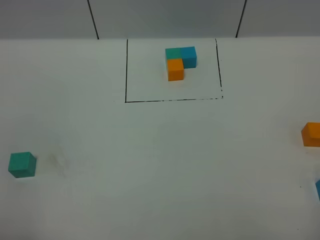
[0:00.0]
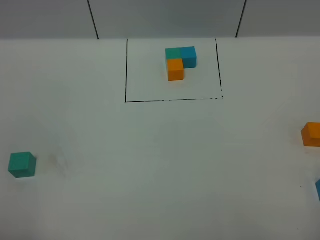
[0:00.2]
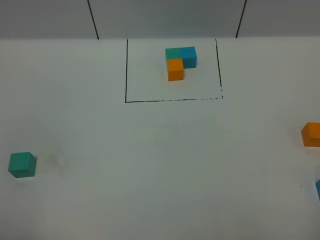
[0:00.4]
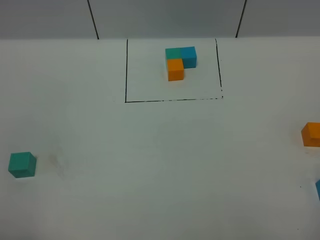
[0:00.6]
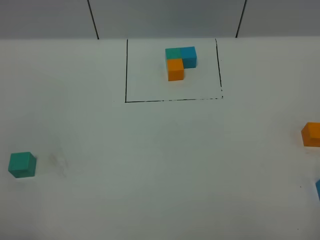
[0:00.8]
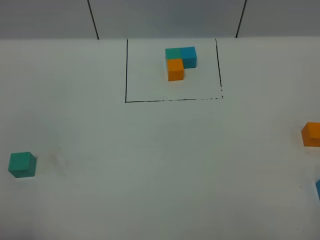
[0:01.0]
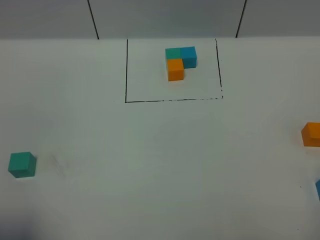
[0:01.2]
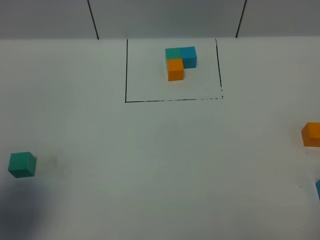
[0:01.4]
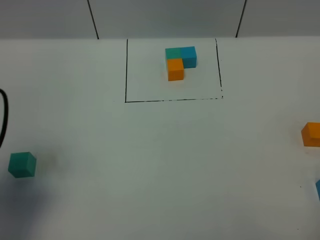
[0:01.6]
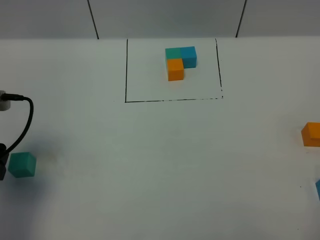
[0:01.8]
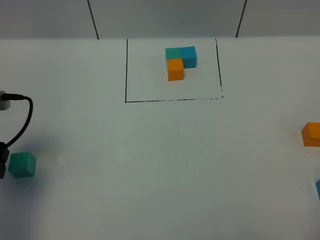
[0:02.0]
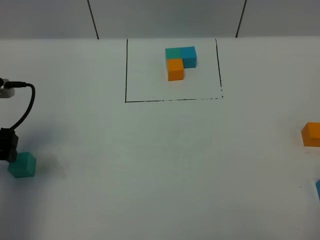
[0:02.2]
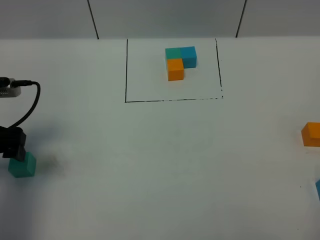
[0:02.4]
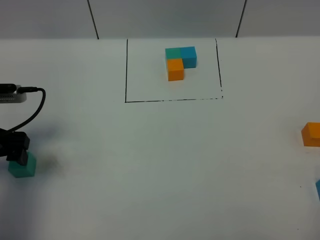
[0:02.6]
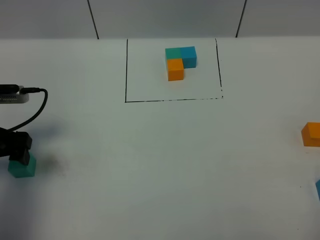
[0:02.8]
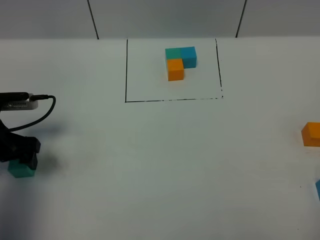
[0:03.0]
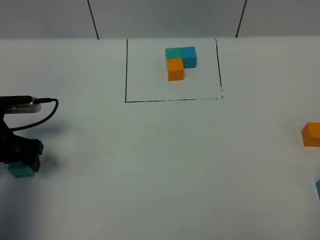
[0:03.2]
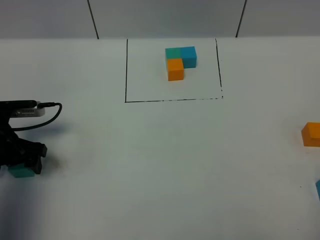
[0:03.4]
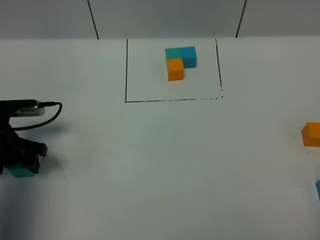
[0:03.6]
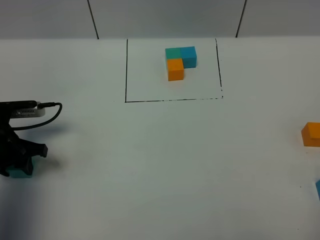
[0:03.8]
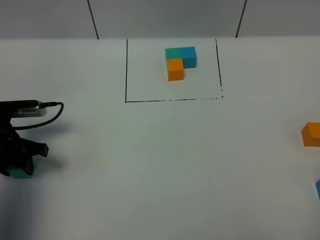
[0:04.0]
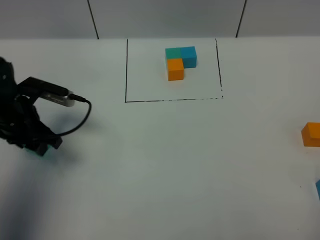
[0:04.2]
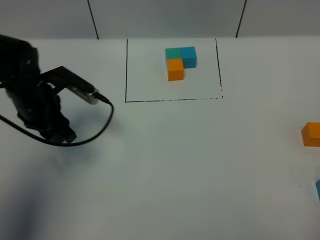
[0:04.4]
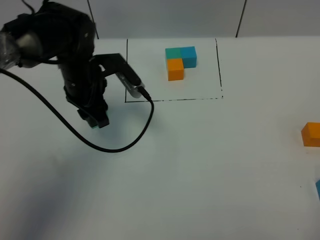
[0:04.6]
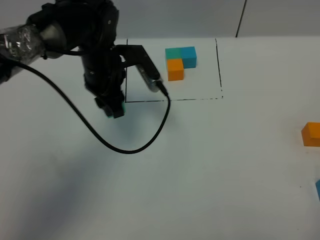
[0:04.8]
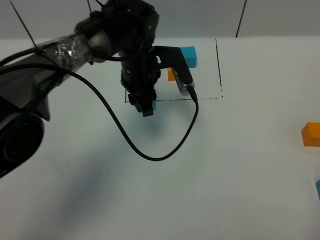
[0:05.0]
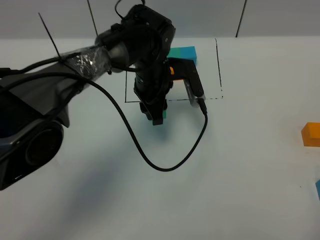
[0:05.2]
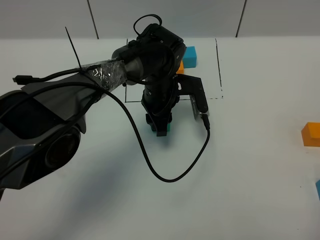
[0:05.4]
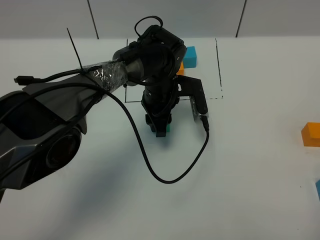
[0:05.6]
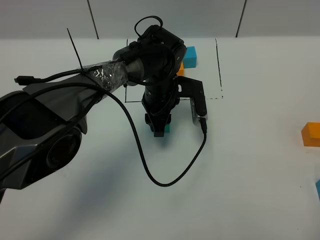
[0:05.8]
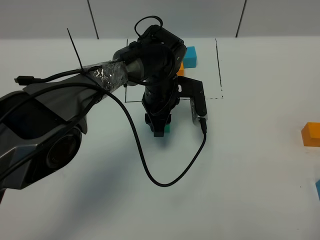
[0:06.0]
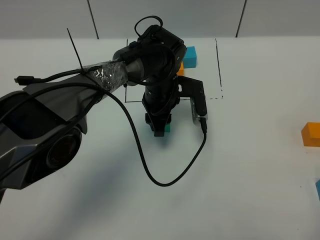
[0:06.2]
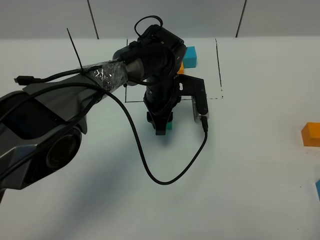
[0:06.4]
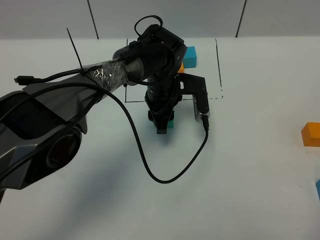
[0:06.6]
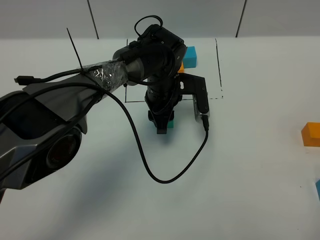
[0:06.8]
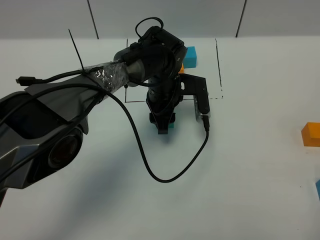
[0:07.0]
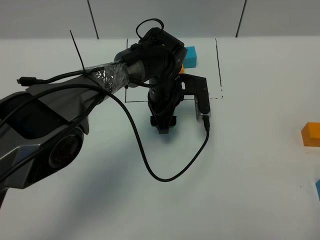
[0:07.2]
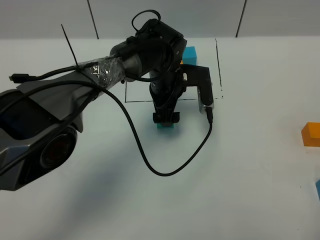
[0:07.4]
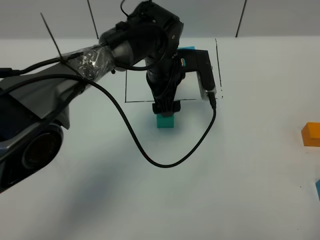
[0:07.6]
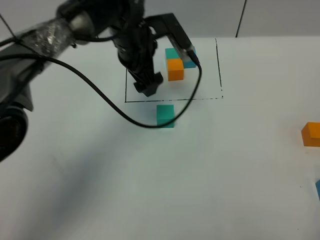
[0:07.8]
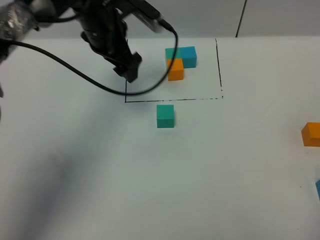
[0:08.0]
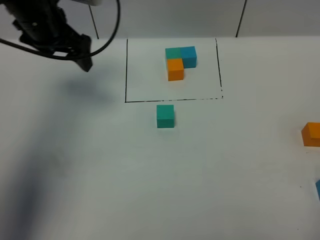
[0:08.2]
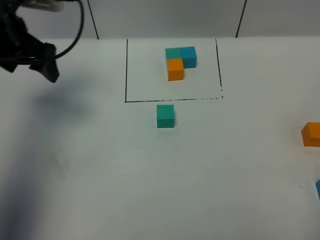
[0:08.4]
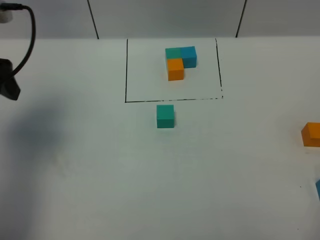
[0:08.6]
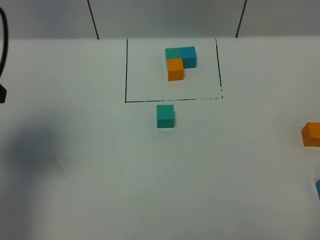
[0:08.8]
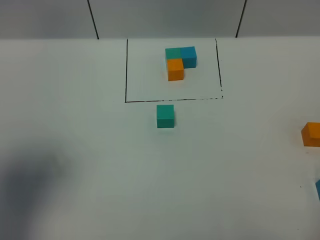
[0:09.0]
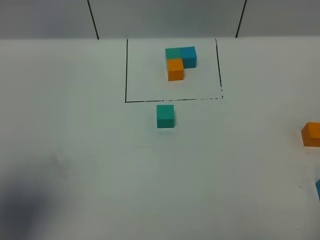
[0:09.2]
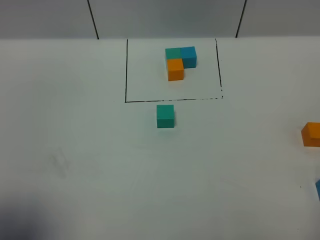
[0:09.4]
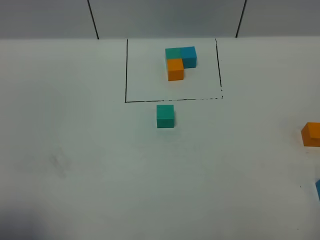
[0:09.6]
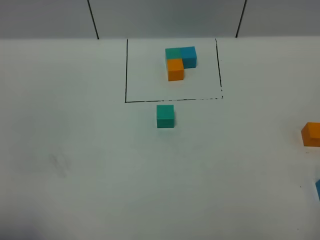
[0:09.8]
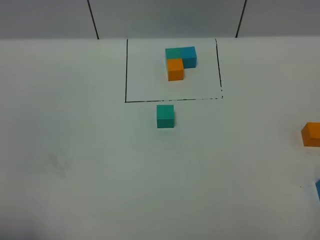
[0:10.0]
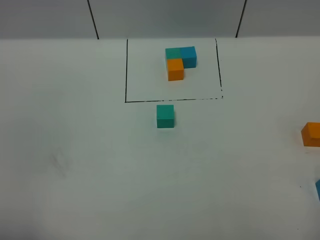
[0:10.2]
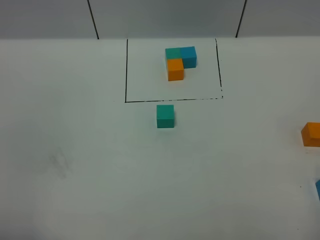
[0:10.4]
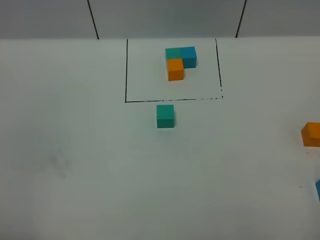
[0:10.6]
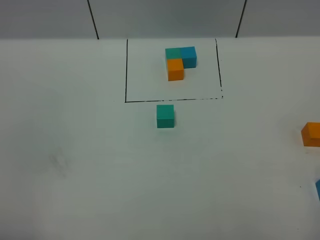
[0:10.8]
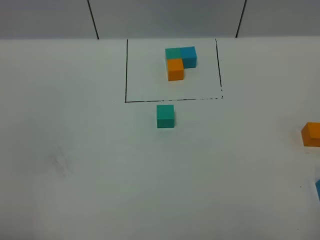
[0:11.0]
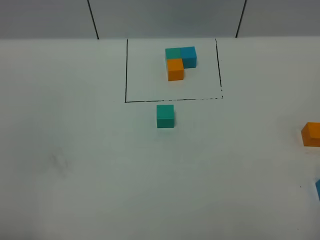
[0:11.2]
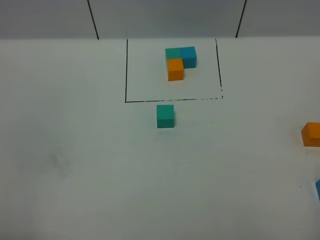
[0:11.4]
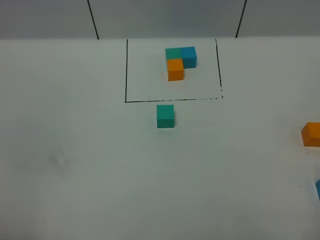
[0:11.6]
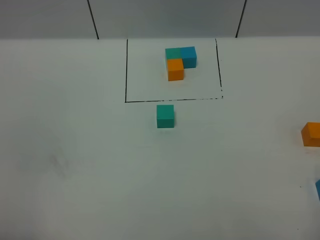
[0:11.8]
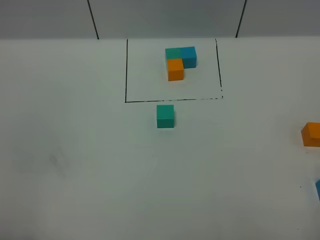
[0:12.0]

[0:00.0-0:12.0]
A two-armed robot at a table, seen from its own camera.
Task of the whole recording: According to the building block template in front, assemble the scattered blocks together.
Step, 0:00.0 to 0:07.0: Put the green build block in the center of the table.
0:00.0 to 0:01.6: The left gripper travels forward by roughly 20 cm.
0:01.6 to 0:03.0: The left gripper moves downward and forward, approximately 15 cm.
0:03.0 to 0:04.4: The left gripper is displaced to the right and forward by roughly 10 cm, and closes its fingers.
0:04.4 to 0:06.0: The left gripper heads to the right, covering about 20 cm.
0:06.0 to 0:07.6: The left gripper heads upward, covering roughly 5 cm, and opens its fingers.
0:07.6 to 0:09.0: The left gripper is displaced to the left, backward and upward by about 40 cm.
0:09.0 to 0:10.4: The left gripper travels backward and downward by approximately 15 cm.
0:10.4 to 0:12.0: Both grippers stay about where they are.

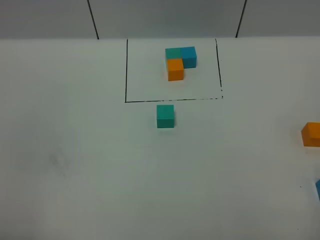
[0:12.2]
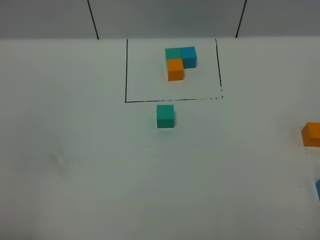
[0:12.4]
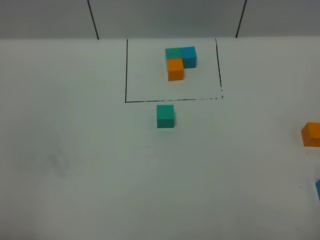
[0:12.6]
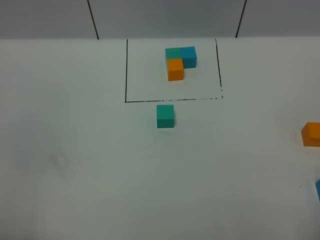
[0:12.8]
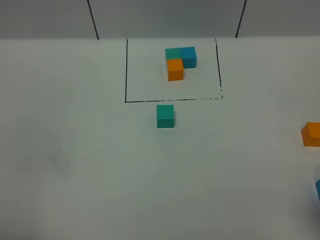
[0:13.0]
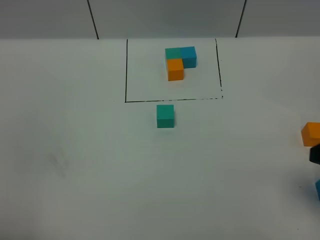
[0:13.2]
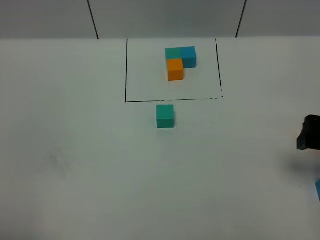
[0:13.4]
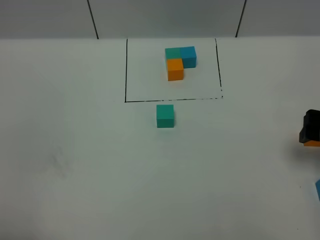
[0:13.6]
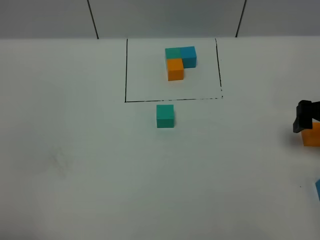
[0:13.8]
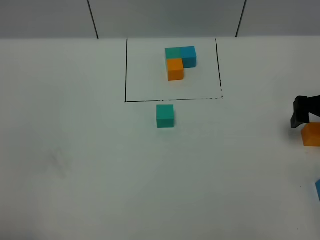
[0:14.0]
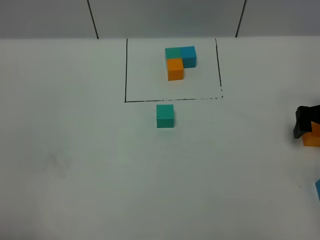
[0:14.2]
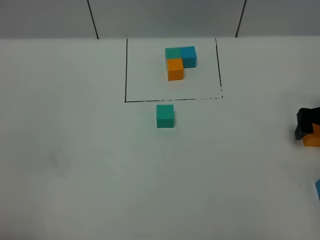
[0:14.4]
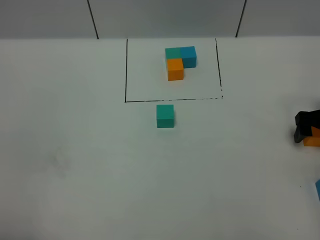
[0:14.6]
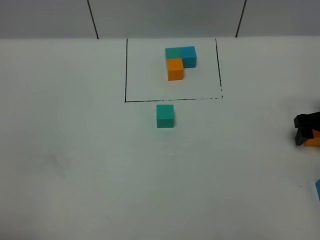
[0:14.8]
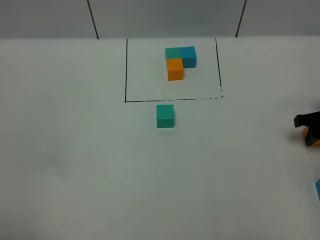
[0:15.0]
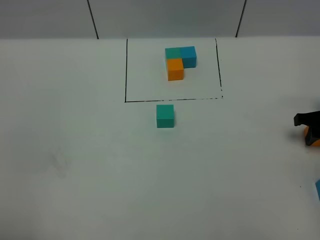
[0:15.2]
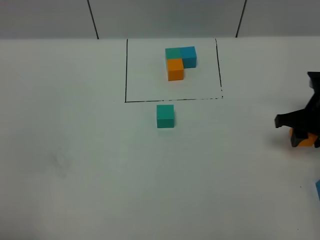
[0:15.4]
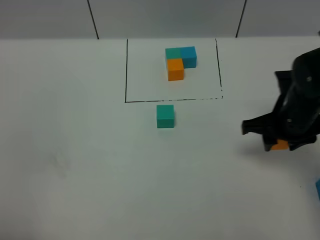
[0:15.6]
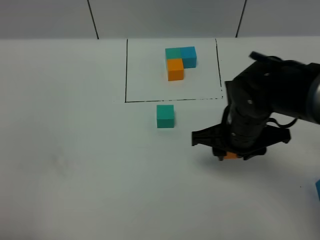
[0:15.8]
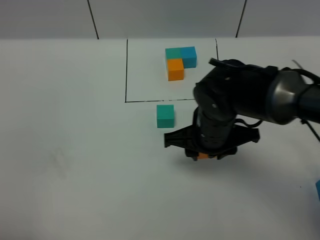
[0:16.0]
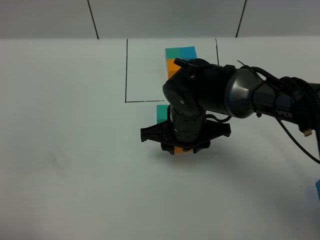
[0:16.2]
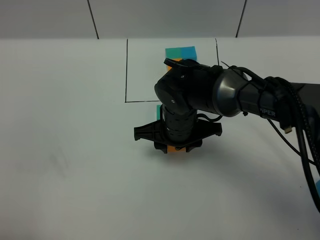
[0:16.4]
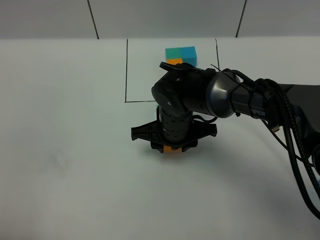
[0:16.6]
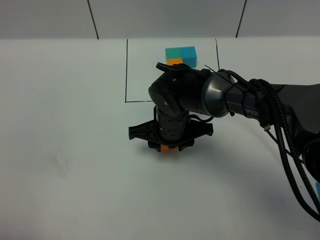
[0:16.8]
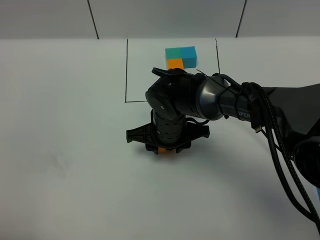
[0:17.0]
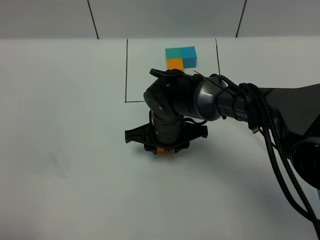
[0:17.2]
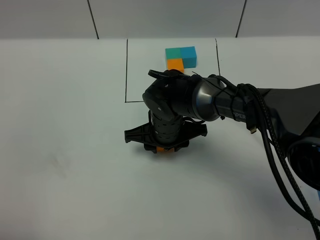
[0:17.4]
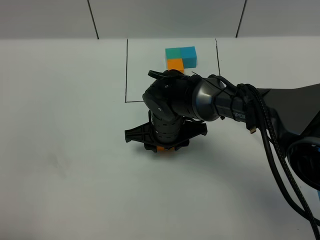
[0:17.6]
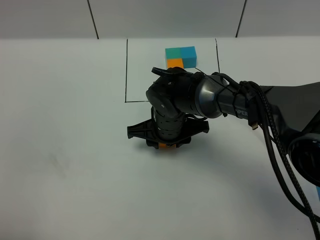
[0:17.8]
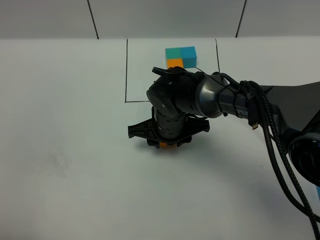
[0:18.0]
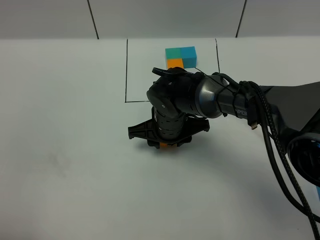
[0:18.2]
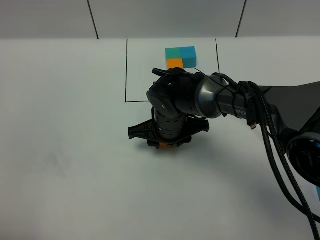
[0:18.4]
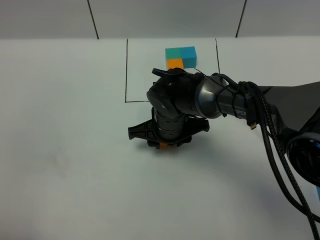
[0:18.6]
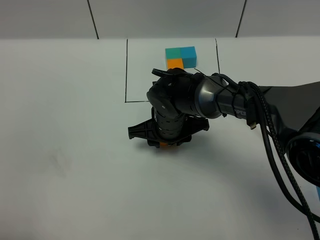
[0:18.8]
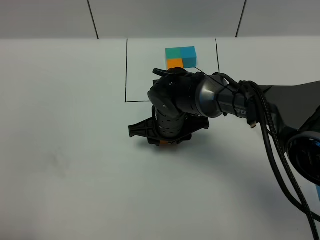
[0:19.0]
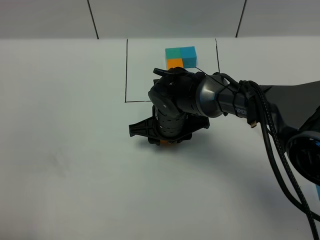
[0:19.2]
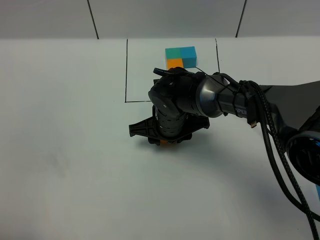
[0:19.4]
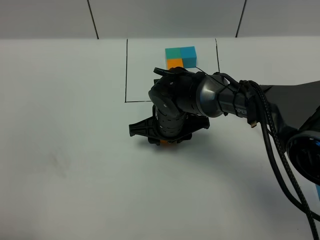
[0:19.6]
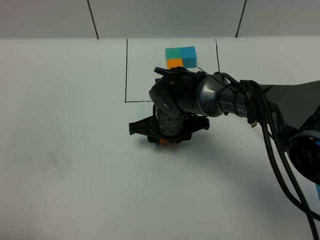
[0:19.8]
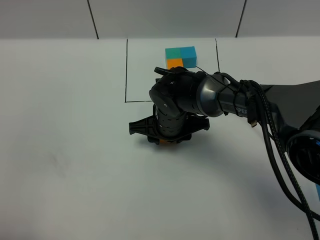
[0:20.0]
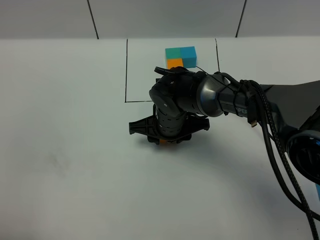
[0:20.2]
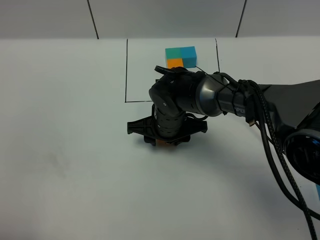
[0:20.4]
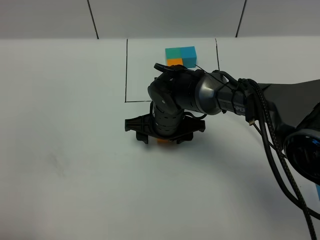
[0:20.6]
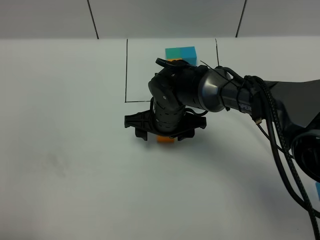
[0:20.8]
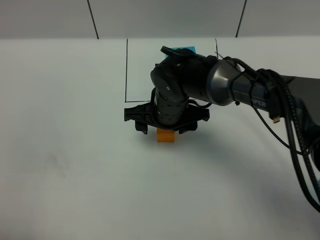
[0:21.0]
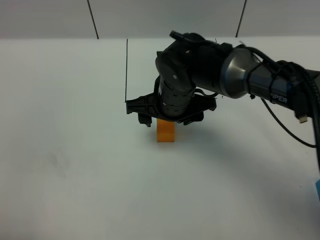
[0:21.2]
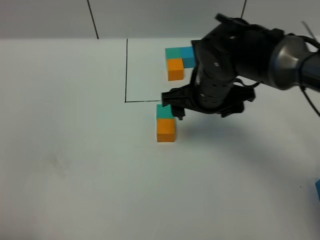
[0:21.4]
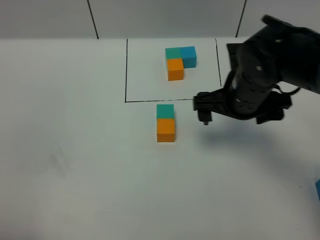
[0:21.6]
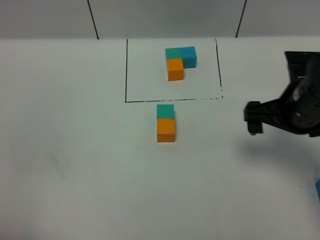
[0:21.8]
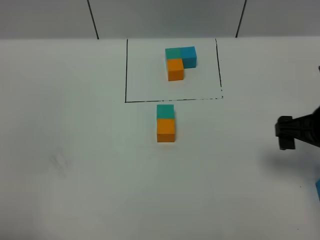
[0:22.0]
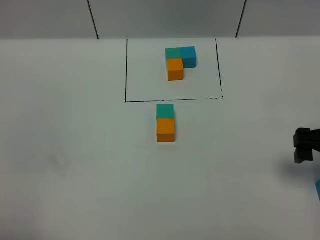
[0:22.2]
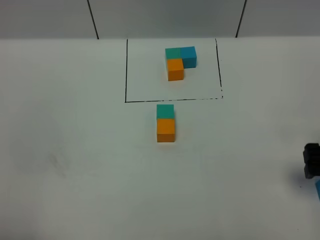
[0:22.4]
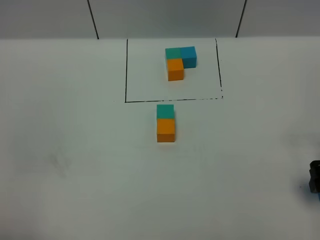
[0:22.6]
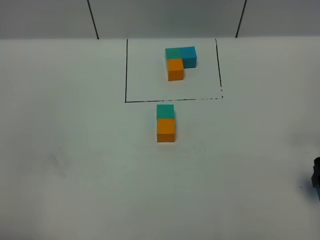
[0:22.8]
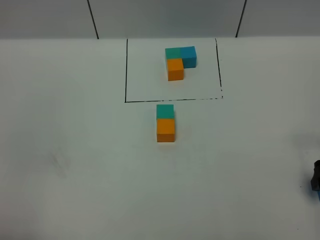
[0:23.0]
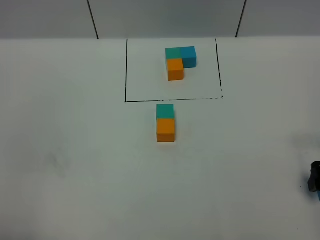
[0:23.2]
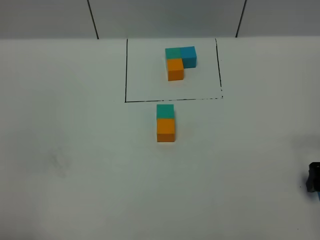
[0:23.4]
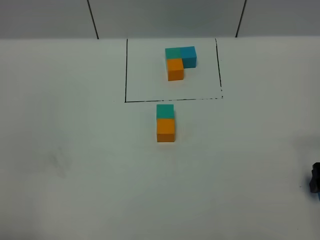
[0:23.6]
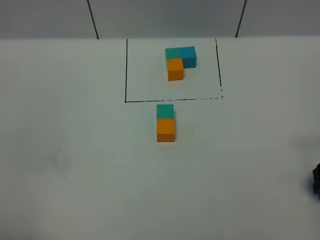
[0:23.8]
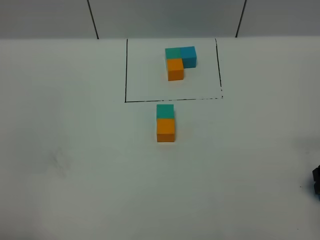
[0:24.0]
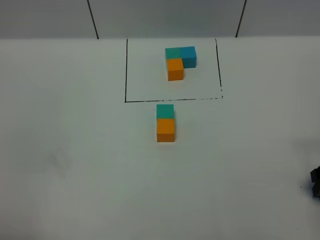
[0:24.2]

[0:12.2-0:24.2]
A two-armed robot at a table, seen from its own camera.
Task of the whole recording: According to the building block template in front, assemble the scattered blocks together.
Step, 0:12.2 to 0:20.4: Put the orange build block on the behind of the green build block.
0:12.2 to 0:13.8: The right gripper is displaced forward by roughly 30 cm.
0:13.8 to 0:15.2: The right gripper shifts some 5 cm downward, and closes up.
0:15.2 to 0:16.6: The right gripper is displaced to the left by approximately 35 cm.
0:16.6 to 0:18.2: The grippers move only a little.
0:18.2 to 0:19.8: Neither gripper changes place.
0:19.8 to 0:21.2: The right gripper moves upward, roughly 10 cm, and opens up.
0:21.2 to 0:22.6: The right gripper goes roughly 30 cm to the right and backward, and opens up.
